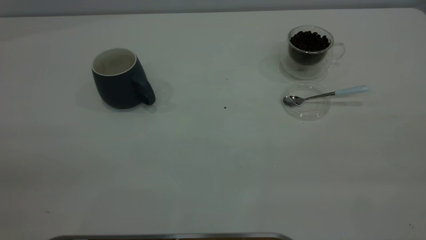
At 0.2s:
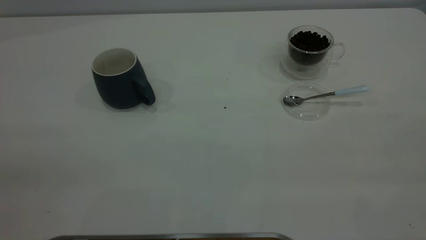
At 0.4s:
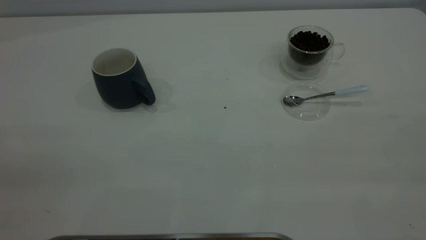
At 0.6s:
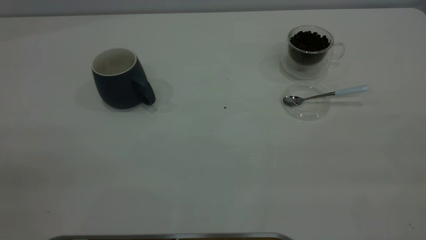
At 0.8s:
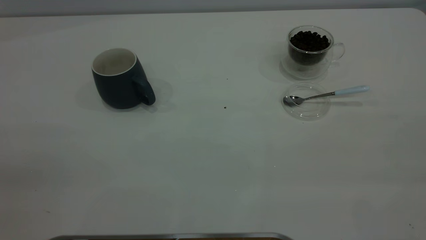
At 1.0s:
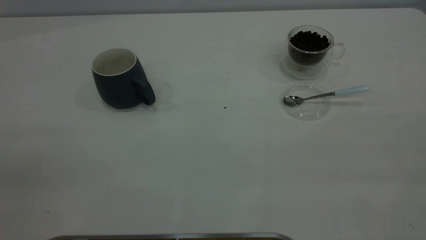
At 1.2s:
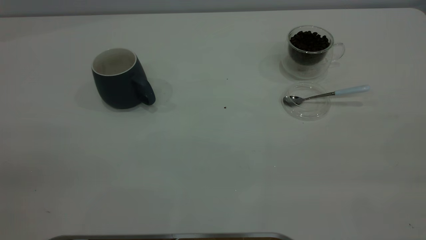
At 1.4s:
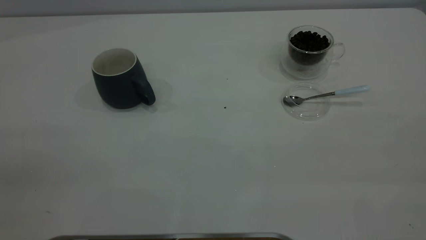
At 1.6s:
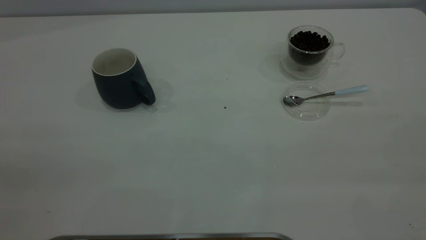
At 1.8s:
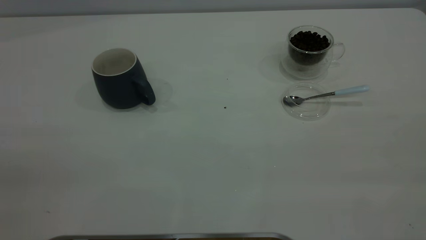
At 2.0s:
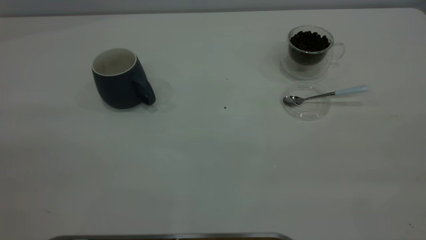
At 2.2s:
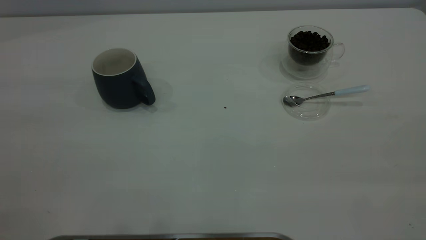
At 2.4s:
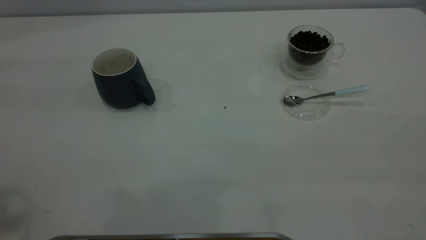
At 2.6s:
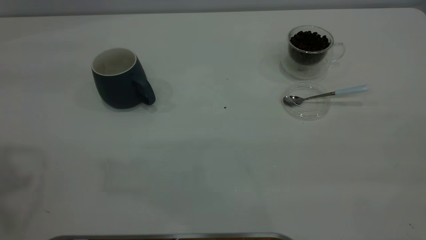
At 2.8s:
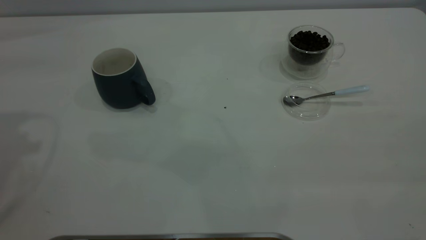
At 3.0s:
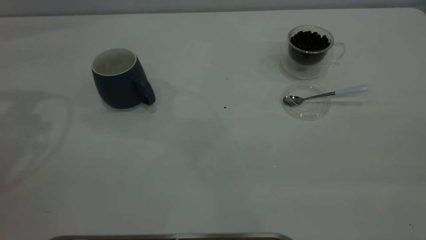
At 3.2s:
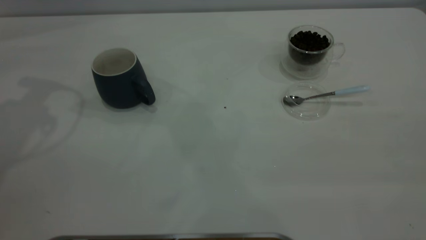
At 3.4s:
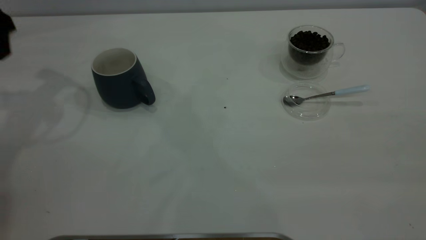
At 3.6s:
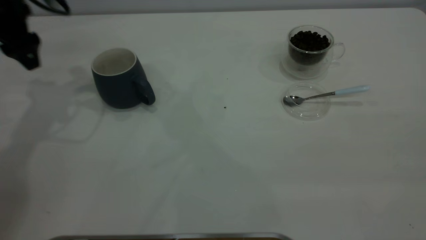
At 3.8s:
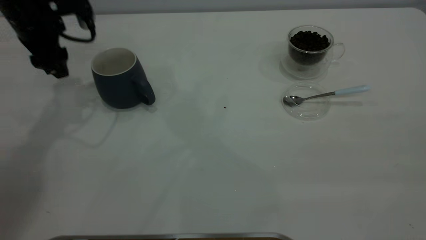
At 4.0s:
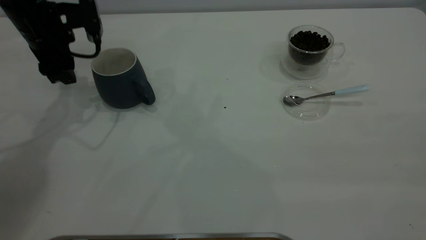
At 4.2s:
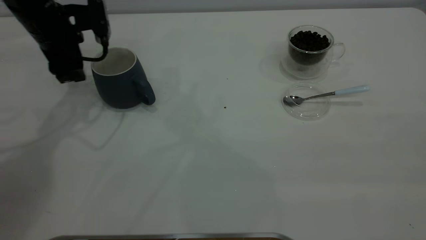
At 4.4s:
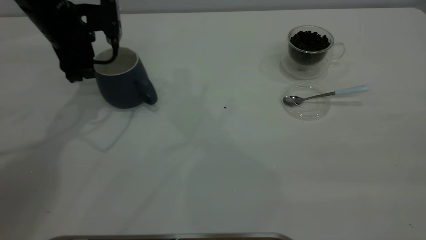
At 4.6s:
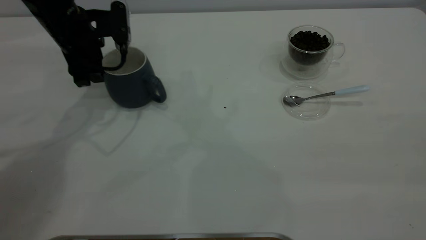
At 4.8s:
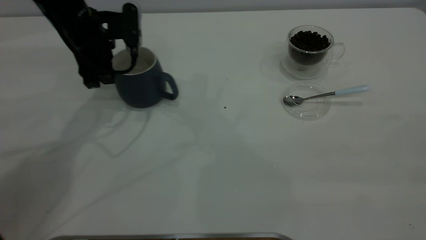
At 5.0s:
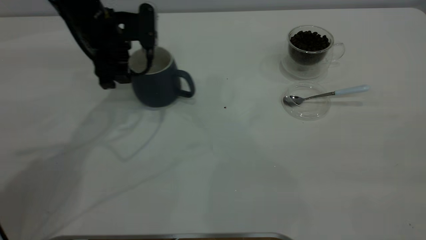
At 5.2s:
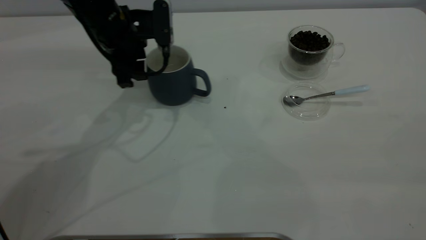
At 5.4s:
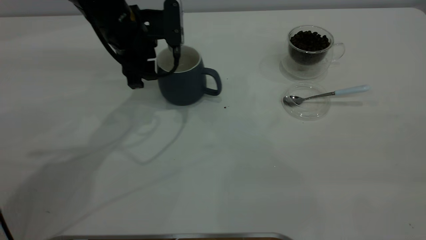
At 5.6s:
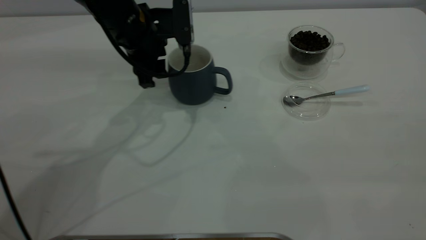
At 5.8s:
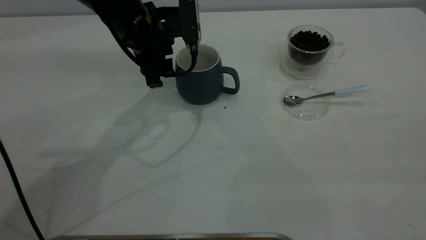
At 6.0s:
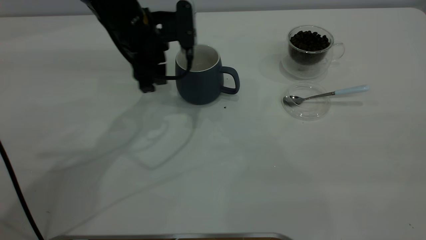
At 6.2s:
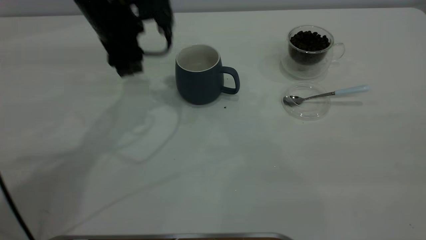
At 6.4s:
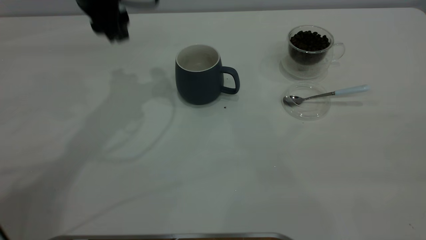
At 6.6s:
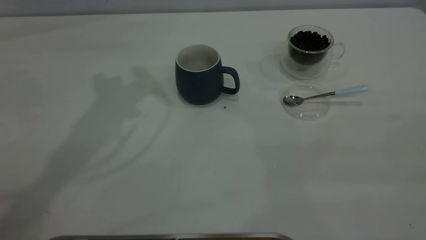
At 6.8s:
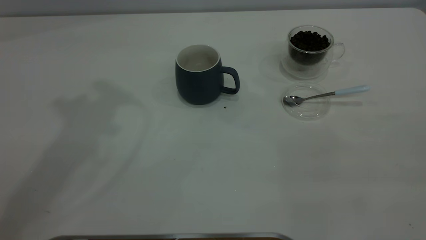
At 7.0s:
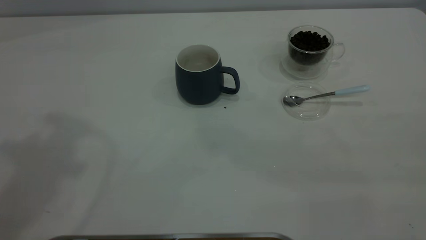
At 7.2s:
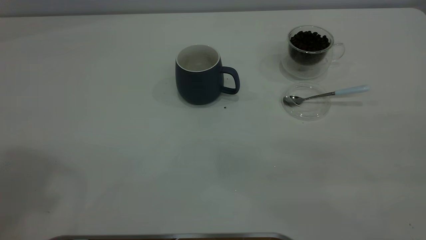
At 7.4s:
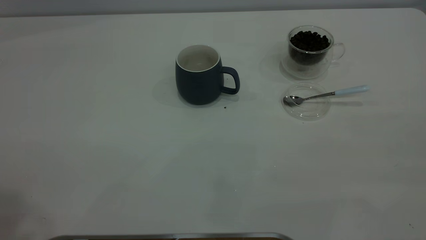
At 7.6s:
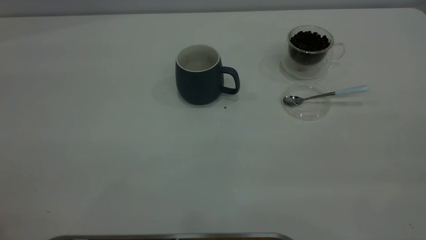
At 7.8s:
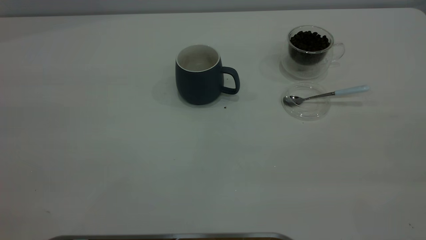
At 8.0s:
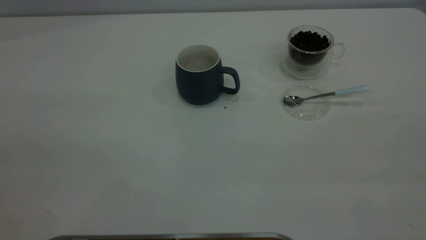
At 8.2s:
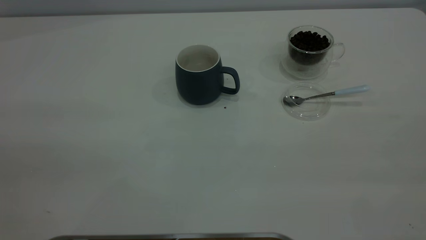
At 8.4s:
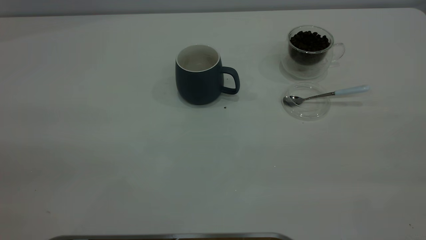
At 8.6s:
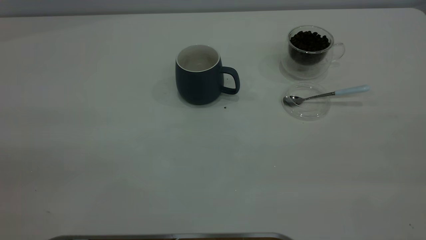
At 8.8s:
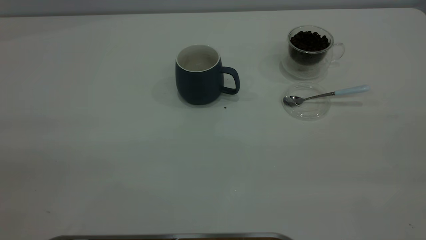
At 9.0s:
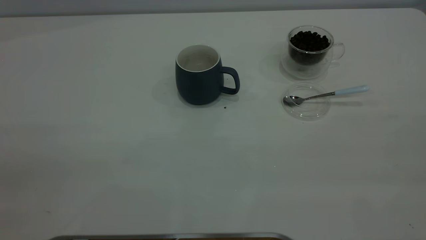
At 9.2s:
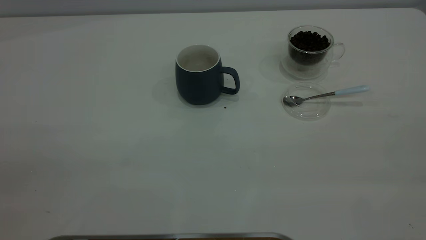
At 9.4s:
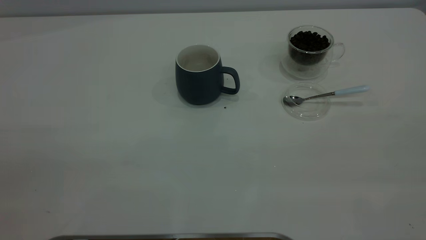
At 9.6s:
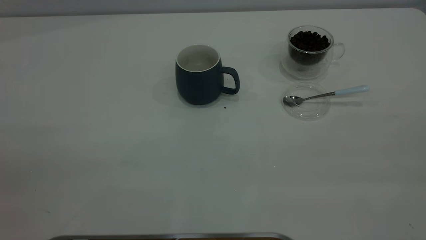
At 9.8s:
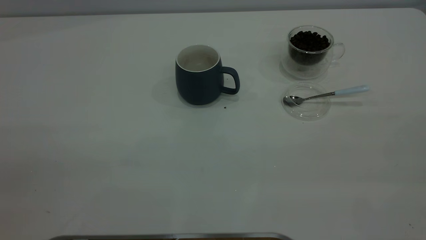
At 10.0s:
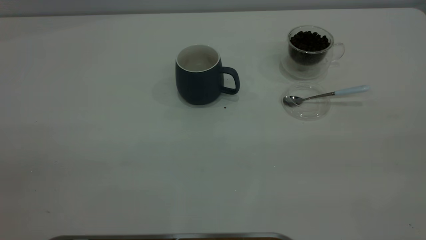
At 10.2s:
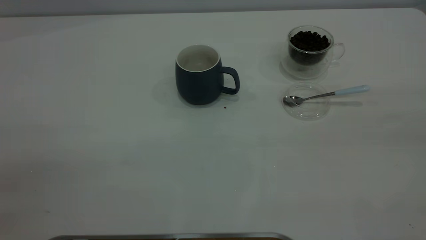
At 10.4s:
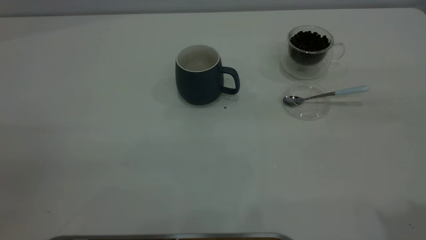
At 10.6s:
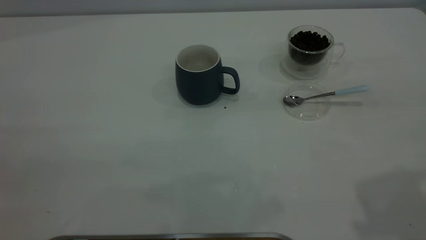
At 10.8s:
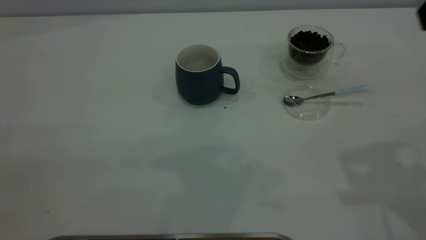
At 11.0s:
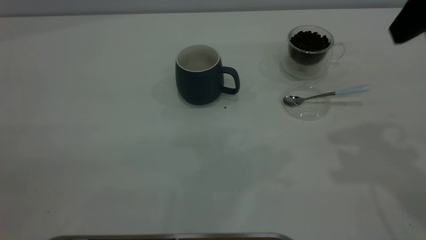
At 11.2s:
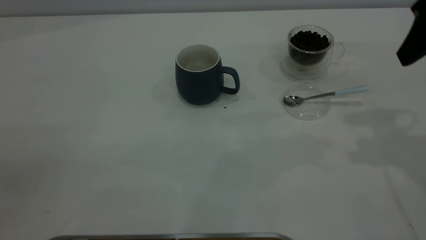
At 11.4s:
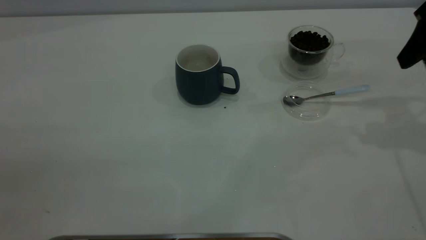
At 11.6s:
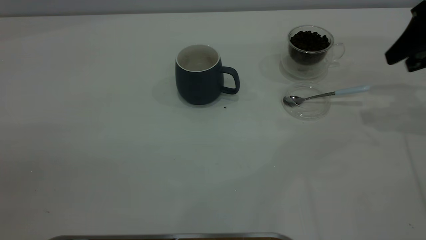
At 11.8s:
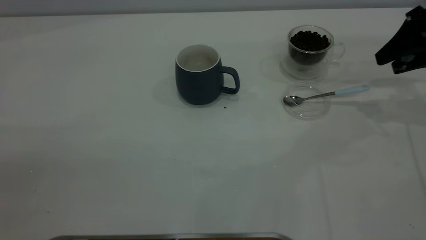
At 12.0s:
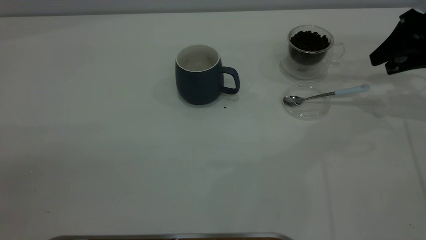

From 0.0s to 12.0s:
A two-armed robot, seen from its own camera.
Task of the whole recording: the left gripper place the grey cup in the center of the table, the right gripper take the blue spoon from the cup lid and scoop out the coffee beans from the coffee cup and put them into the grey cup, the right gripper put the spoon back into the cup lid.
Step, from 0.0s to 6.0s: Move the cup to the center of view.
From 0.0s to 1.6s: Neither gripper changes place.
From 3.0s to 4.4s: The left gripper goes roughly 20 cm downward, to the right and forward.
From 4.4s to 6.0s: The left gripper heads to the right, covering approximately 10 cm.
From 6.0s to 7.6s: The left gripper shifts some 50 cm upward, backward and to the left.
From 10.4s to 12.0s: The right gripper travels forward and downward by about 35 cm.

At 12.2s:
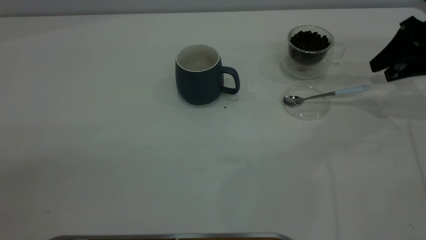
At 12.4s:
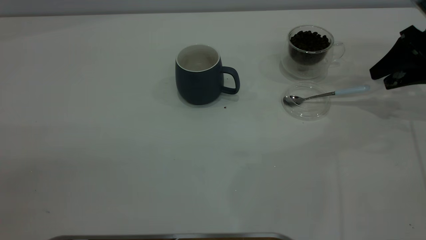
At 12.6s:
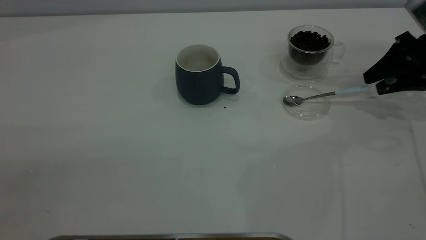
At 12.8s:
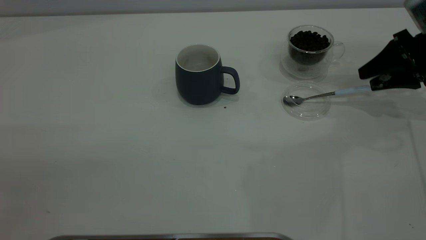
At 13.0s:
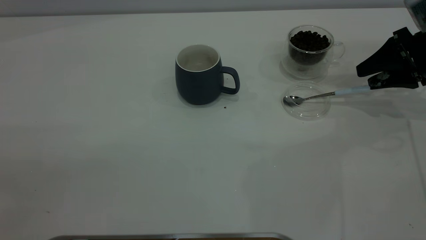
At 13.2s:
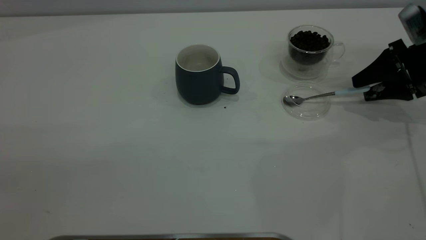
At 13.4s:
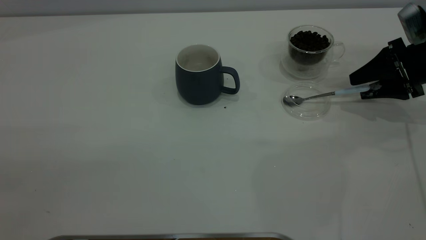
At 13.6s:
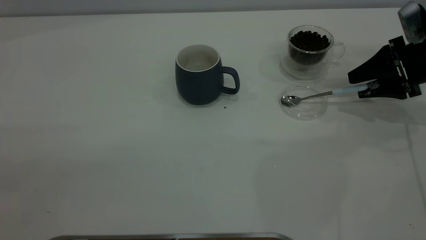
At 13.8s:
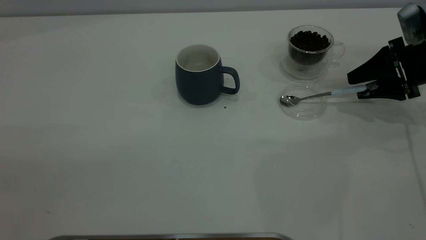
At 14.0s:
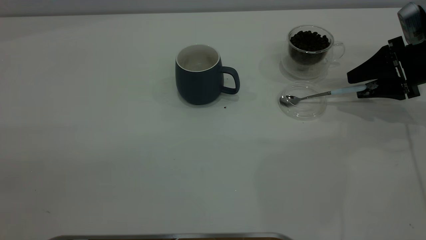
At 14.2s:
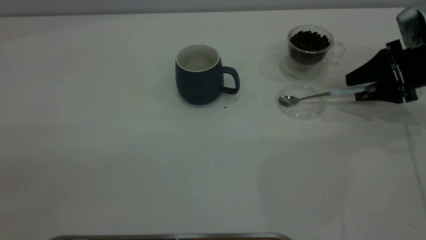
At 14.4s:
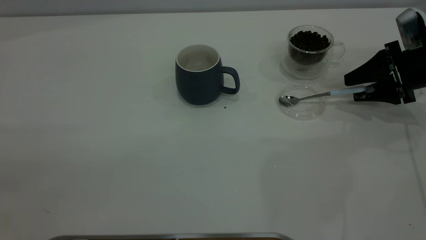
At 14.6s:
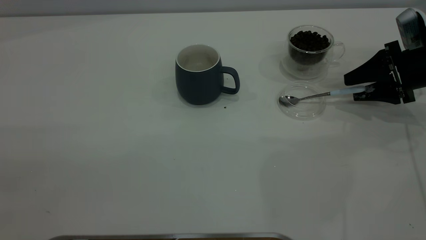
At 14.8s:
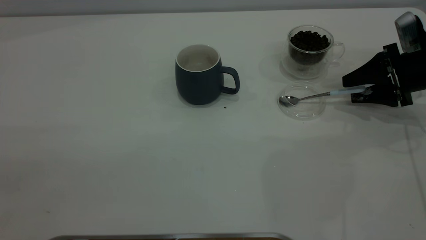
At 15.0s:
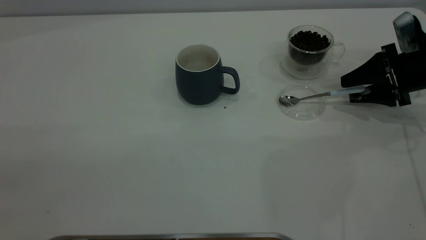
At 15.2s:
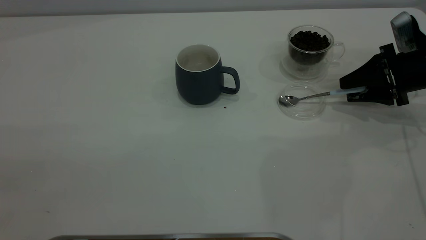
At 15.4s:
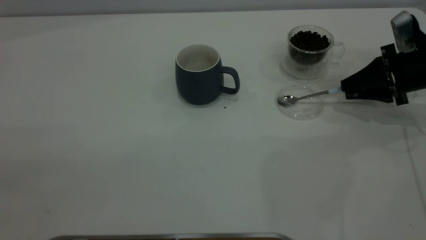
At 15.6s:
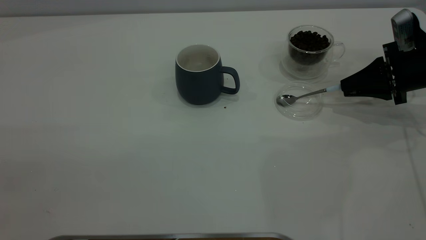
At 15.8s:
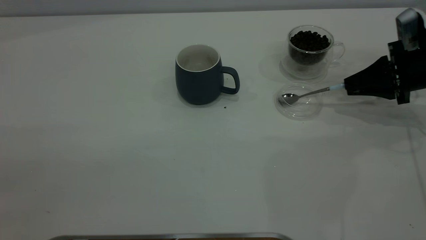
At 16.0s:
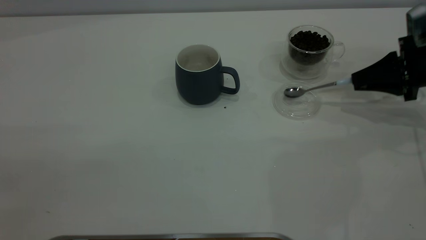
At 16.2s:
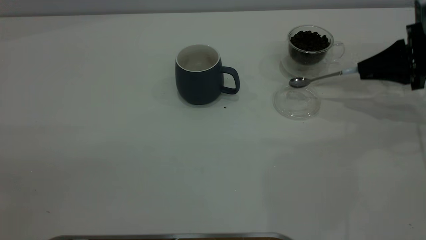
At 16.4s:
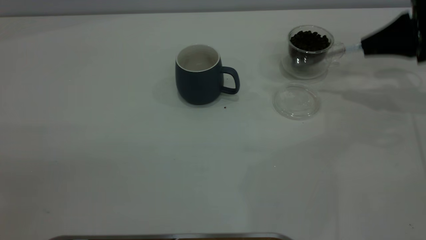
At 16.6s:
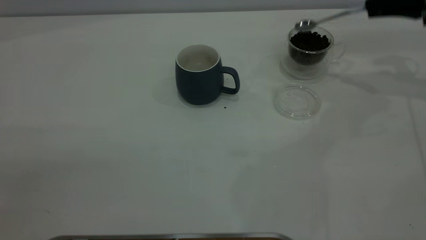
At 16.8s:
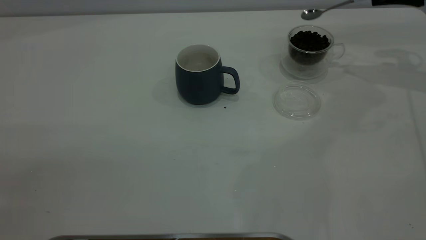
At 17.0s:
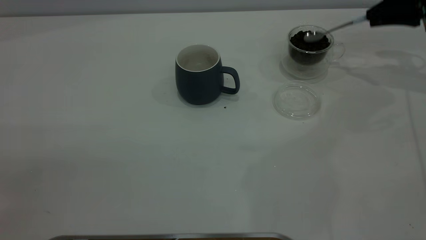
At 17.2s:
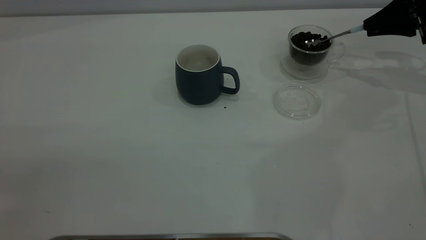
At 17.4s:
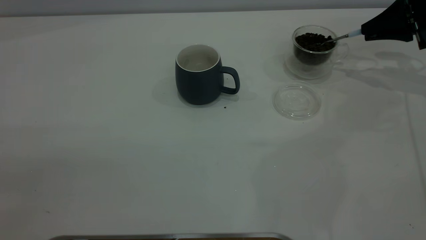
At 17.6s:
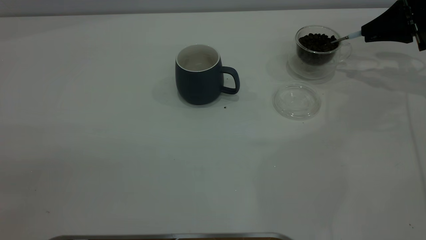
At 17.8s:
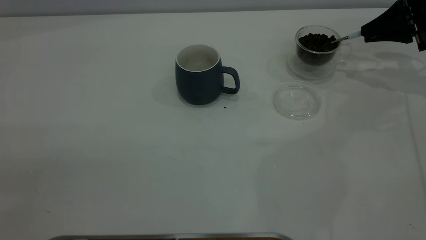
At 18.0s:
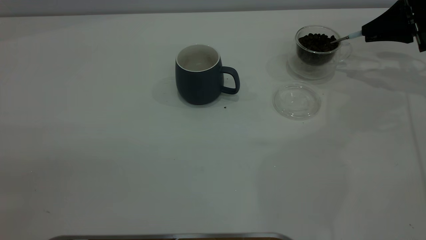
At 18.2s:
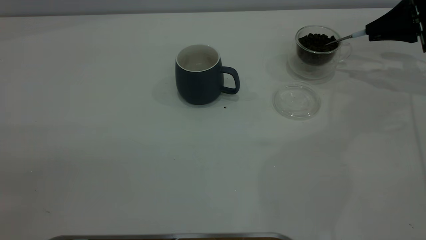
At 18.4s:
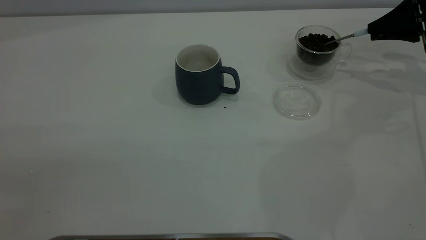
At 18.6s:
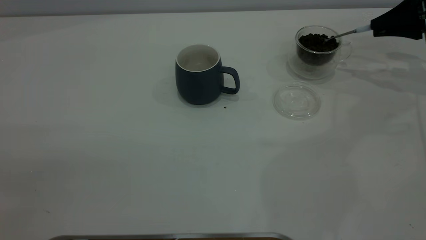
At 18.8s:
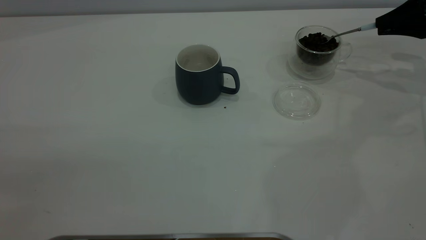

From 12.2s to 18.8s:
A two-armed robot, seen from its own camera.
Task of the whole recording: the left gripper place the grey cup in the center of the table, the right gripper take the blue spoon from the cup lid and scoop out the coffee beans from the coffee cup and put them into the grey cup, the right gripper put the spoon back into the cup lid.
Step, from 12.2s to 16.2s: Pick up the spoon.
From 12.2s to 13.8s: The right gripper heads downward, covering roughly 5 cm.
From 13.8s to 15.4s: The right gripper closes.
From 15.4s to 17.2s: The right gripper moves upward and forward, roughly 10 cm.
From 17.2s to 18.8s: There are only small adjustments of the grippers.
